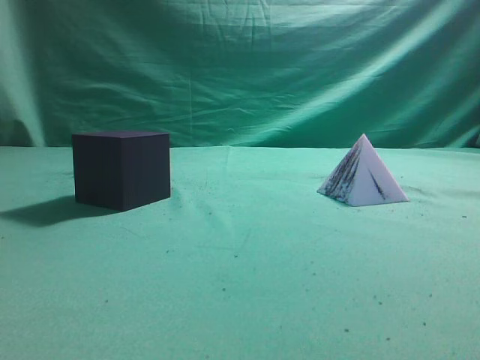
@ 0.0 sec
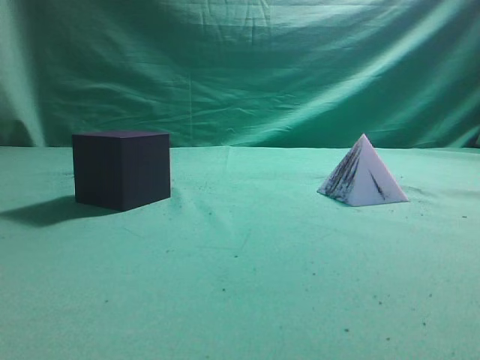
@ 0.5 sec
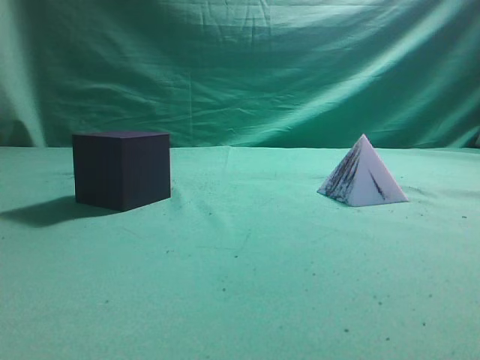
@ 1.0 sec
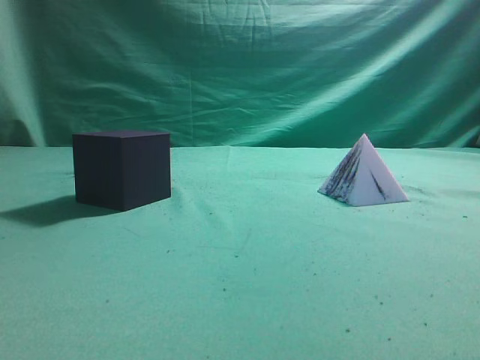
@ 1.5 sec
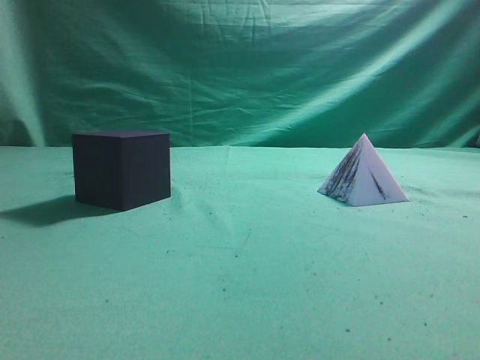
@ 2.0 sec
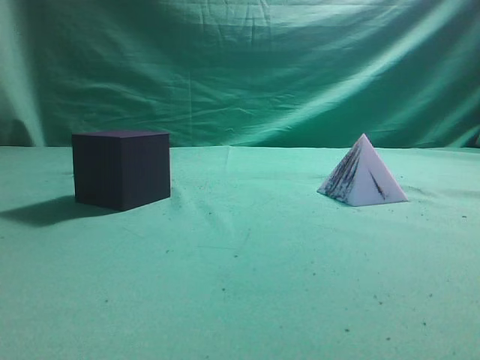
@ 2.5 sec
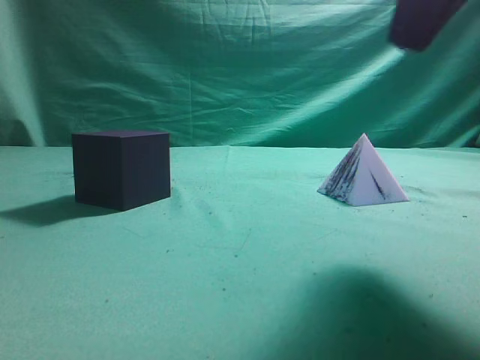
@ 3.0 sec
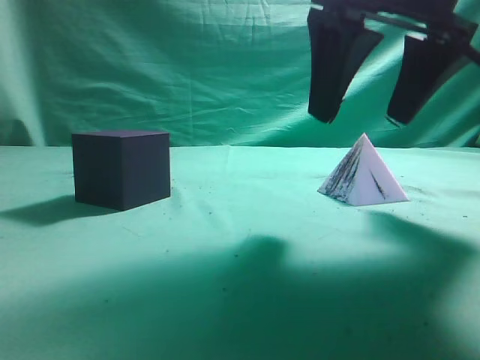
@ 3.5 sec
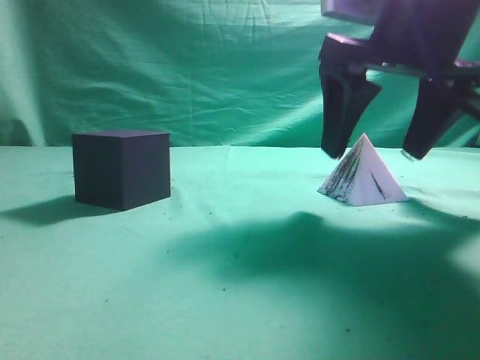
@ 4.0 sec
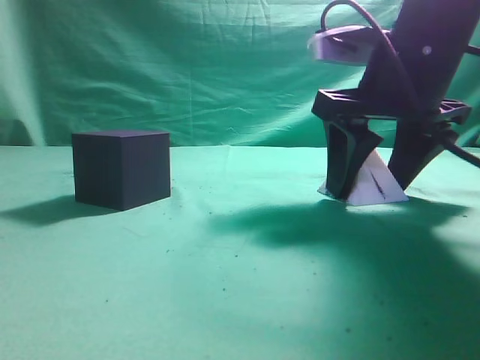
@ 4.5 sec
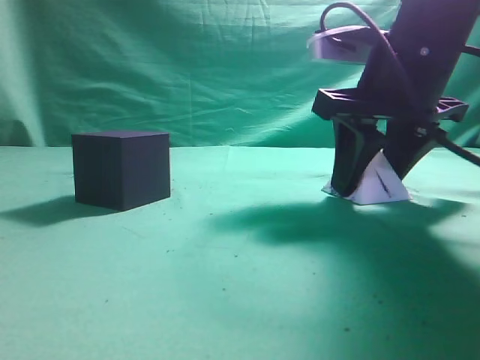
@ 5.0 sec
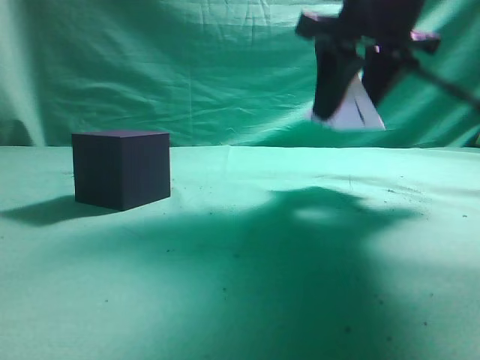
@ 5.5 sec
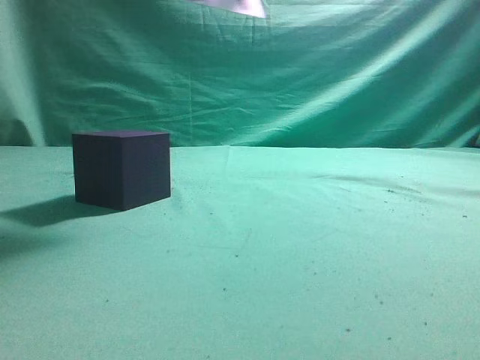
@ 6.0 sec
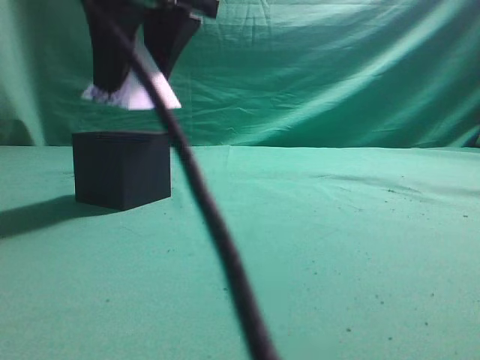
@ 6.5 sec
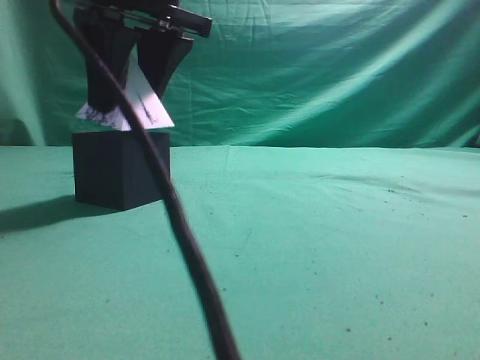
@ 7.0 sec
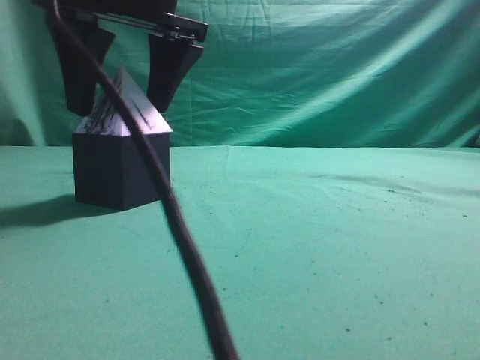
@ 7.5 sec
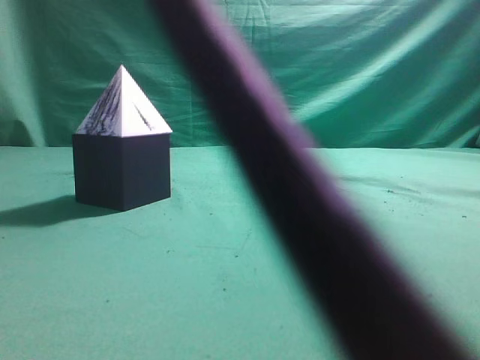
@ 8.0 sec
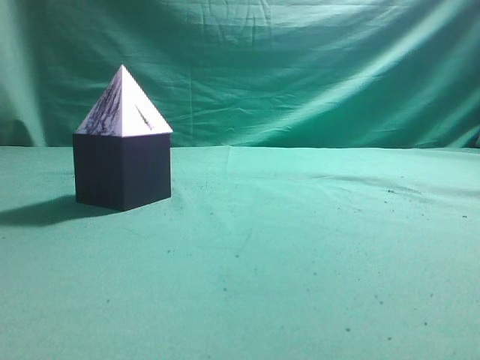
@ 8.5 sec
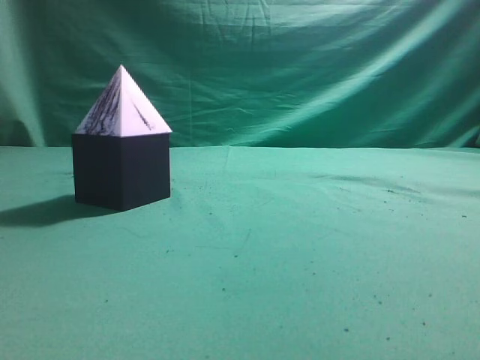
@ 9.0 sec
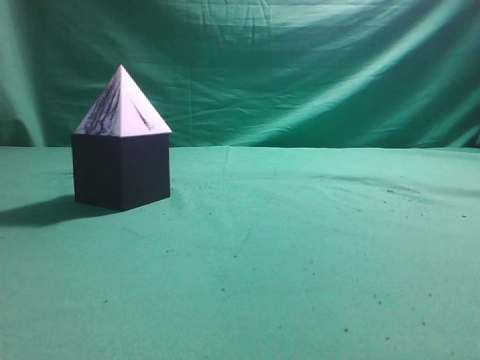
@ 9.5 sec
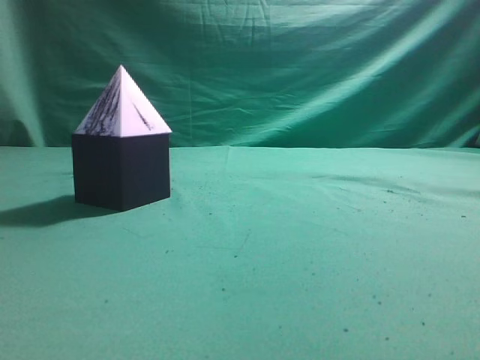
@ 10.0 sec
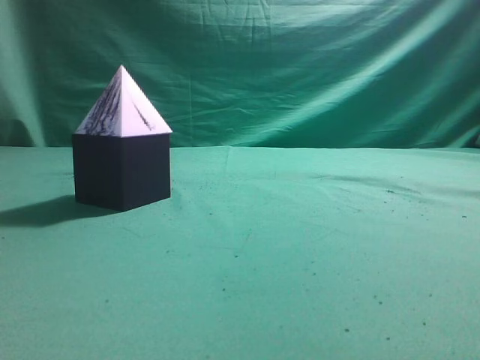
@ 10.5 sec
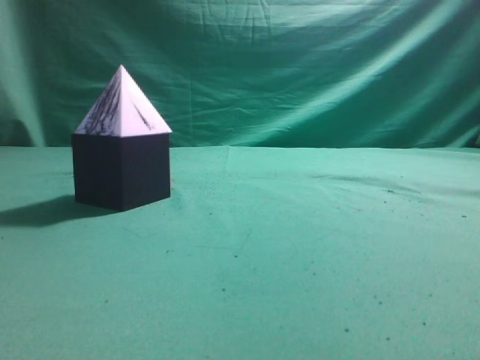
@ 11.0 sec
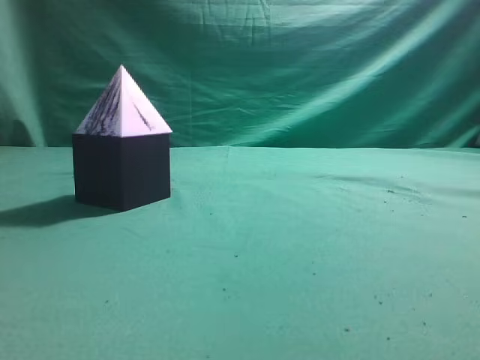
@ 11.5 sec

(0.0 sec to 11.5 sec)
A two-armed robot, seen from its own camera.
Task of the whole recording: pick up the square pyramid from the table and place it on the cube block.
Step, 0.0 sec - 5.0 sec: Grasp the triangular block.
Step, 5.5 sec - 7.5 sec: Place the block onto the cube-shaped block.
2.0 sec - 4.0 sec: The right gripper heads forward and to the left, covering about 25 cm, and opens.
4.0 sec - 6.0 sec: The right gripper moves upward and to the left, approximately 15 cm, and closes.
6.0 sec - 7.5 sec: The right gripper shifts some 15 cm to the left and downward.
7.5 sec - 9.5 sec: The right gripper heads to the right, backward and upward, covering some 40 cm, and closes.
